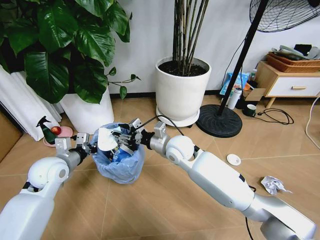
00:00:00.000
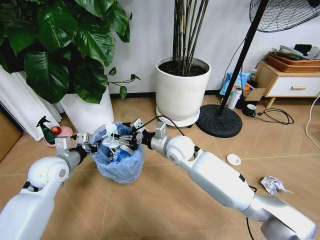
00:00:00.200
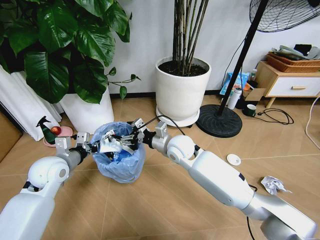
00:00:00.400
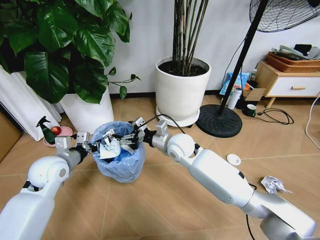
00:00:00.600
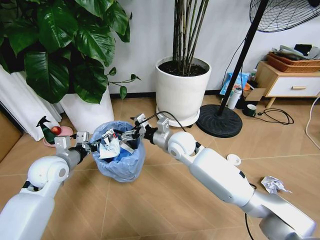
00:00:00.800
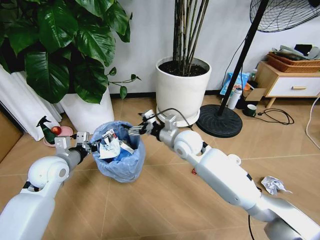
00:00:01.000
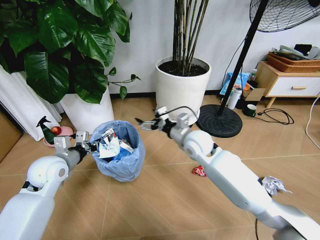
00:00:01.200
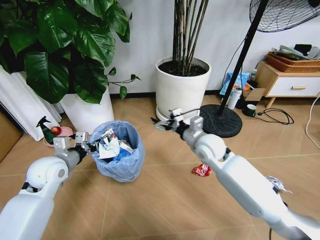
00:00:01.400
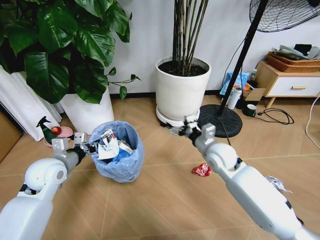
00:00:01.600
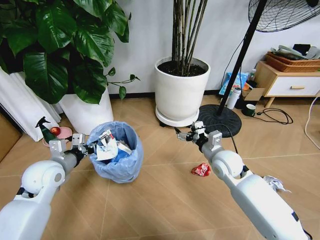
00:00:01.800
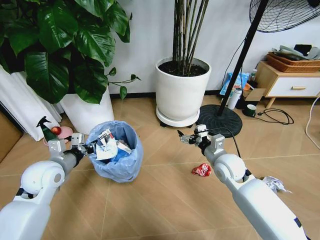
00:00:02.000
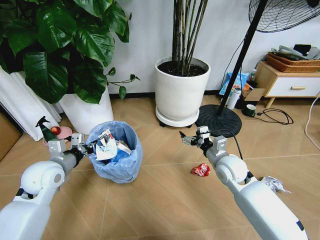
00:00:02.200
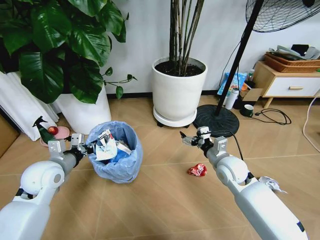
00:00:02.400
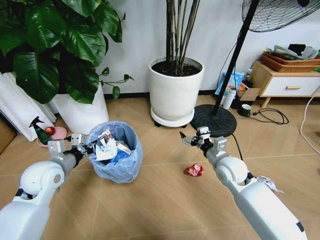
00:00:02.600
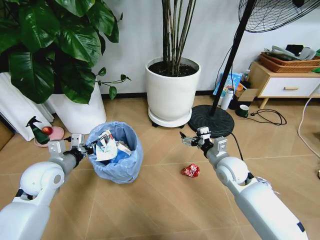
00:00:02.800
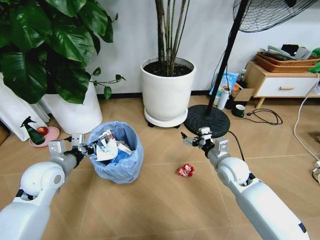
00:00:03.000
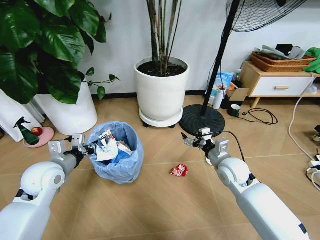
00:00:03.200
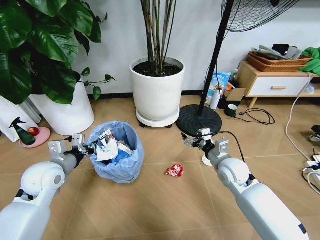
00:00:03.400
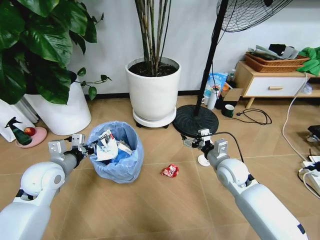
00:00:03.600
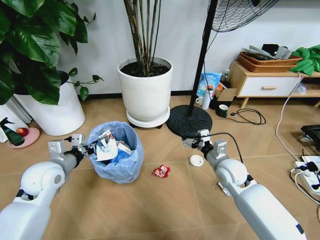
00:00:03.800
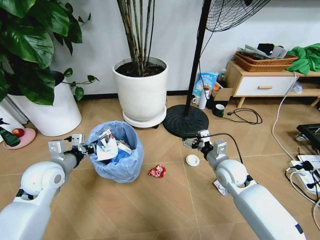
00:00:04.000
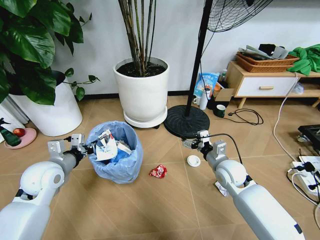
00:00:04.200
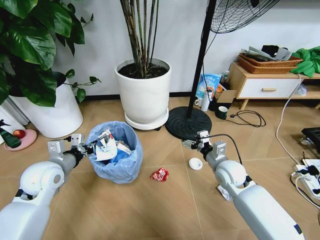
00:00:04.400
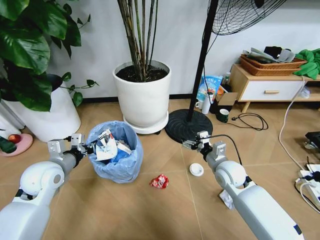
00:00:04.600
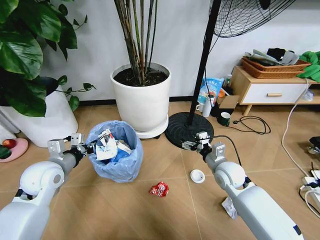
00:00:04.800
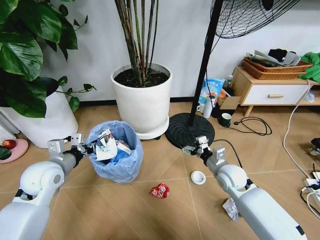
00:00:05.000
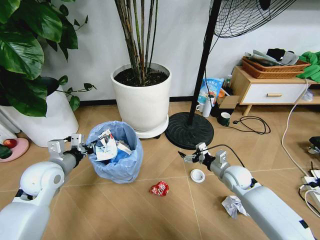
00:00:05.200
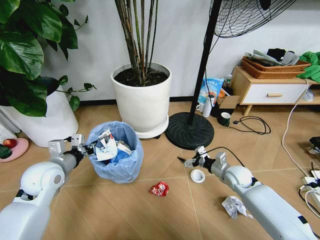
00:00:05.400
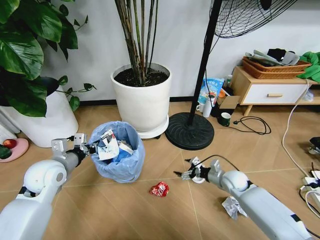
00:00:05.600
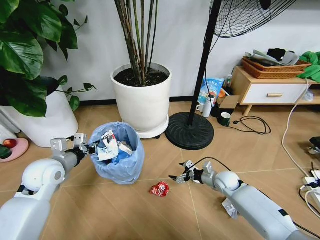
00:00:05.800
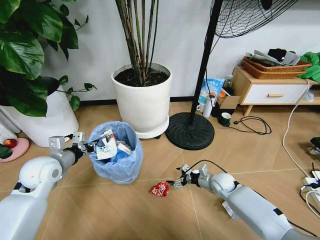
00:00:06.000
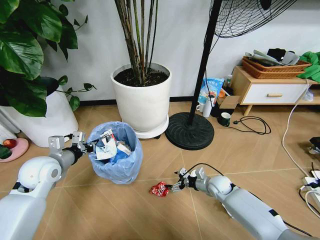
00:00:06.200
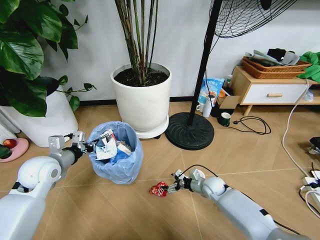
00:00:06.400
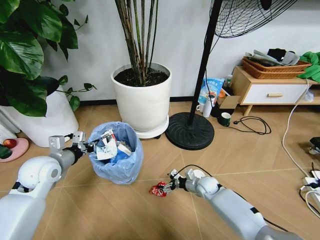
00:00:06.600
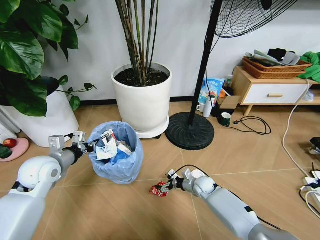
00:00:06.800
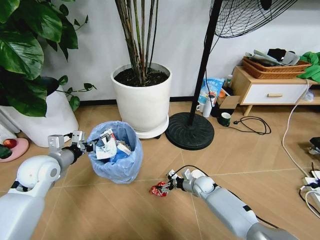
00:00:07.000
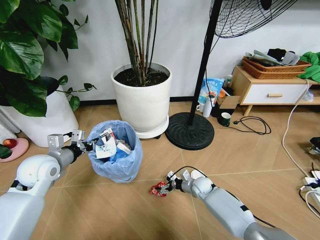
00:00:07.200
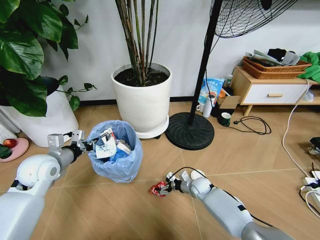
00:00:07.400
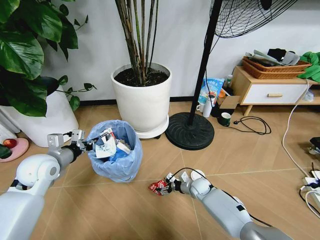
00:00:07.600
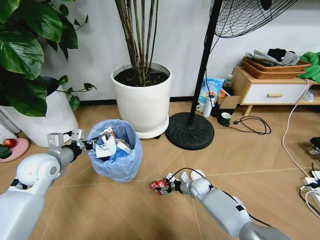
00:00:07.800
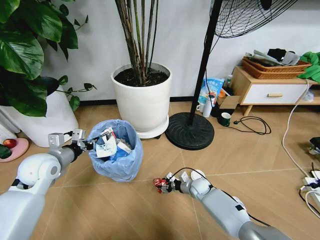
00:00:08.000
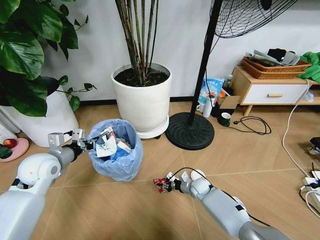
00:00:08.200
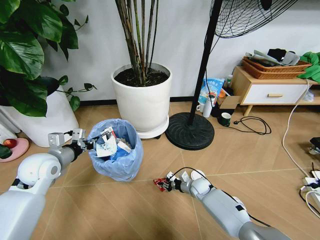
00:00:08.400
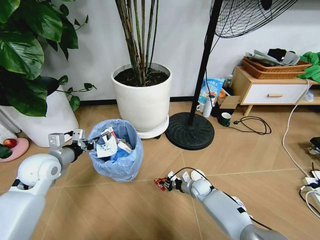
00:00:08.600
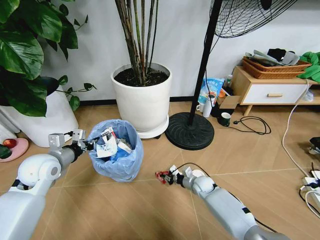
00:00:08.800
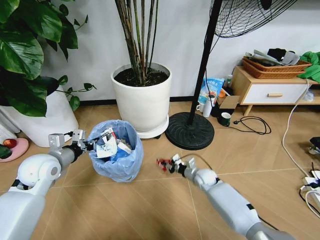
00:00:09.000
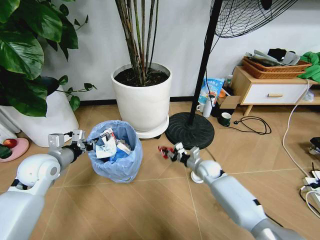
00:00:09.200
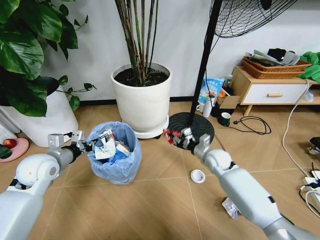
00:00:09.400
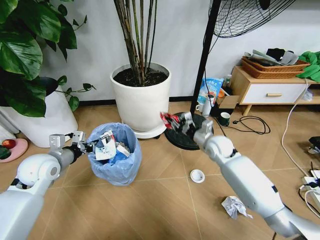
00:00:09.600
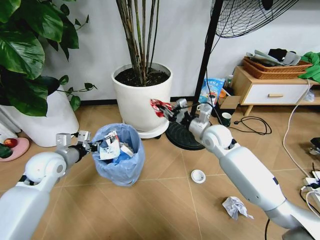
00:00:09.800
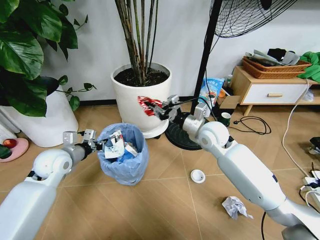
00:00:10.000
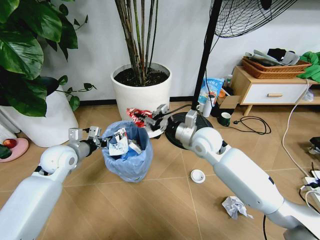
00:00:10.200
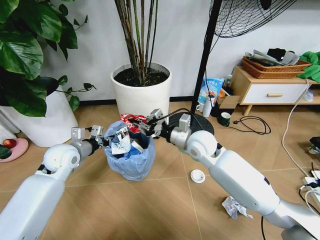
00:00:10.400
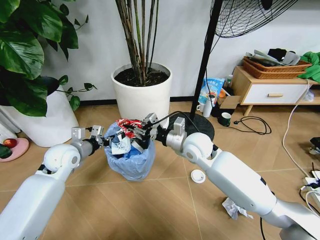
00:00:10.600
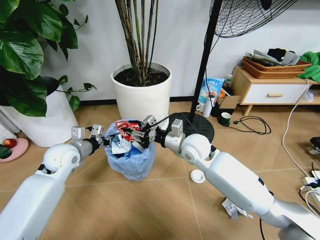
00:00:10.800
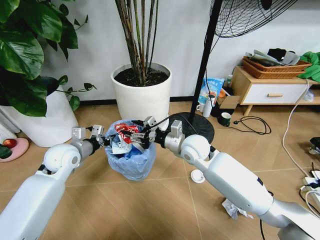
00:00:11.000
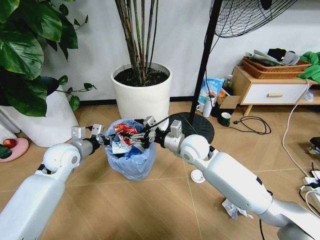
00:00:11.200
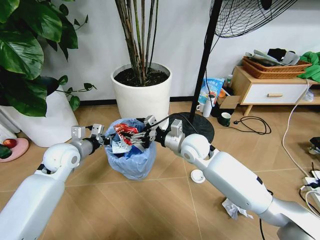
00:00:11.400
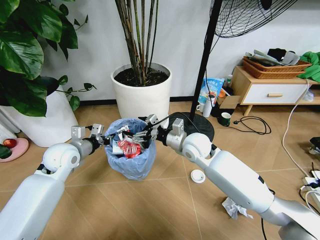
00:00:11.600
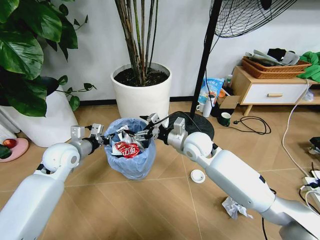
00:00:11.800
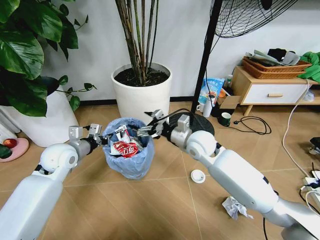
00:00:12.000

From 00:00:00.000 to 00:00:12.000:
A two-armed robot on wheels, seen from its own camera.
Task of the whole recording: Pick up the trash bin and place the garbage on the floor into it.
From 00:00:00.000 to 00:00:01.600: The right gripper is displaced to the right by approximately 15 cm, and opens up.
From 00:00:01.600 to 00:00:03.000: The right gripper changes place by about 5 cm.
From 00:00:04.400 to 00:00:06.000: The right gripper is displaced downward by approximately 15 cm.
From 00:00:06.000 to 00:00:07.600: The right gripper heads downward and to the left, covering about 10 cm.
From 00:00:07.600 to 00:00:09.000: The right gripper shifts approximately 5 cm upward, and closes its fingers.
From 00:00:09.000 to 00:00:10.400: The left gripper shifts by some 5 cm. The right gripper shifts some 25 cm upward.
From 00:00:10.400 to 00:00:12.000: The right gripper opens.

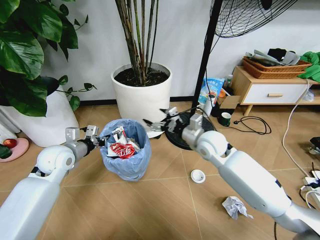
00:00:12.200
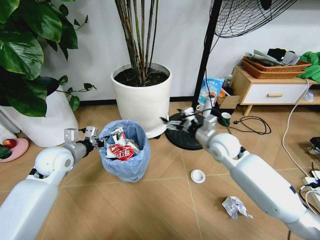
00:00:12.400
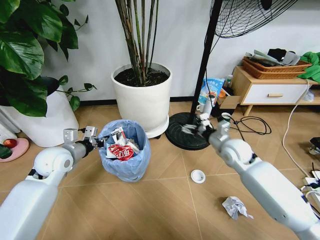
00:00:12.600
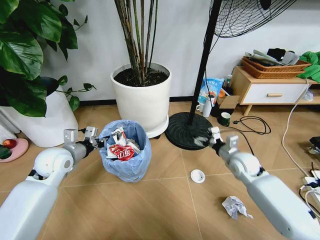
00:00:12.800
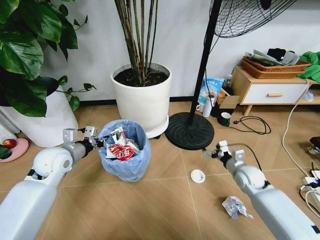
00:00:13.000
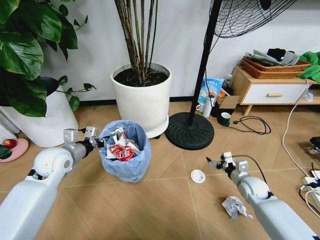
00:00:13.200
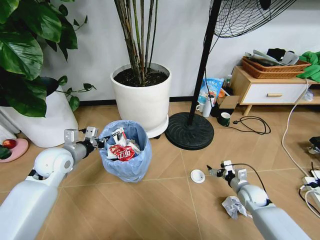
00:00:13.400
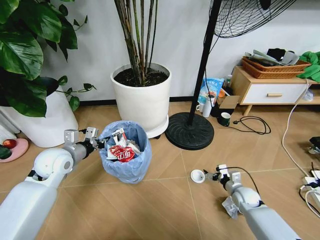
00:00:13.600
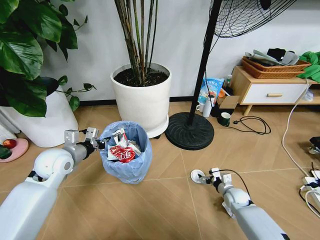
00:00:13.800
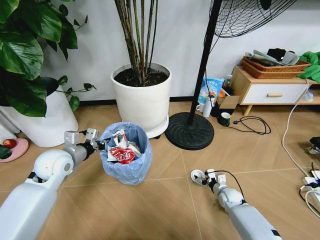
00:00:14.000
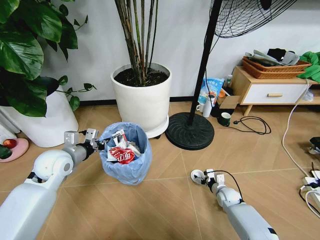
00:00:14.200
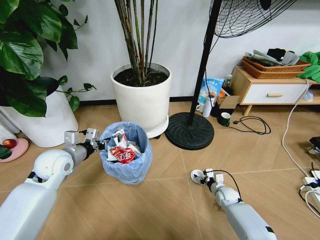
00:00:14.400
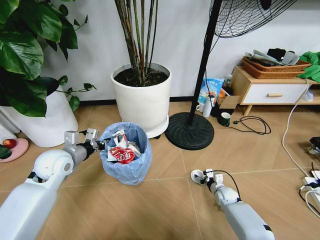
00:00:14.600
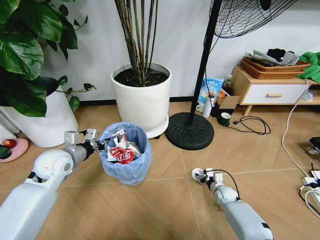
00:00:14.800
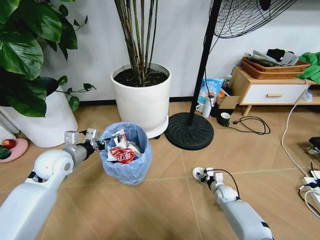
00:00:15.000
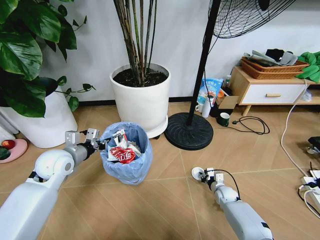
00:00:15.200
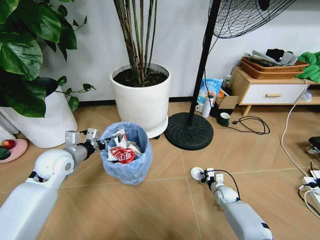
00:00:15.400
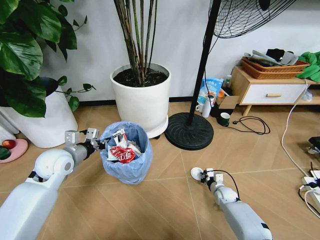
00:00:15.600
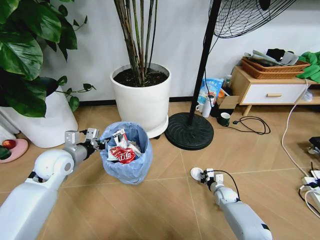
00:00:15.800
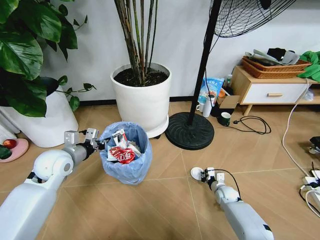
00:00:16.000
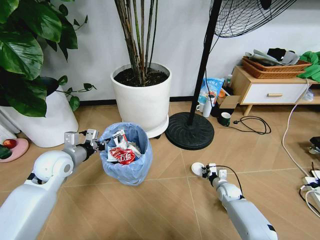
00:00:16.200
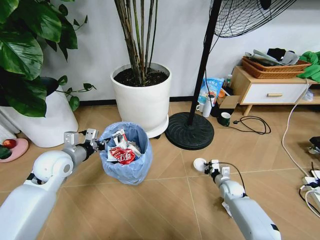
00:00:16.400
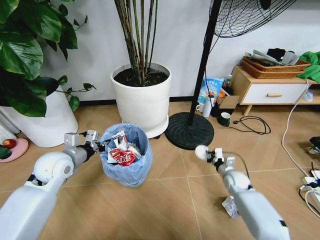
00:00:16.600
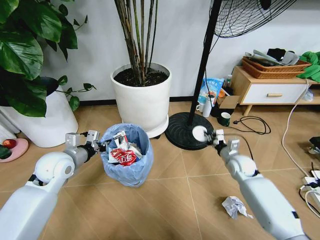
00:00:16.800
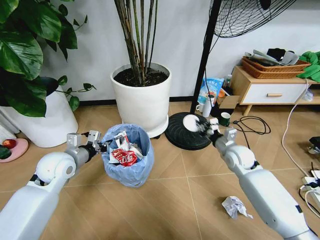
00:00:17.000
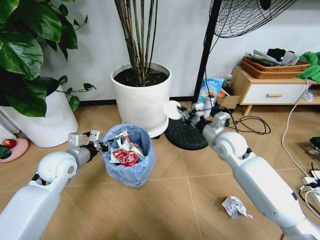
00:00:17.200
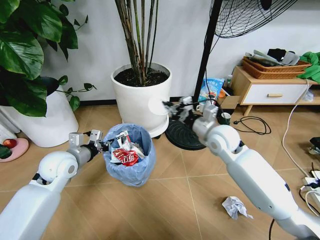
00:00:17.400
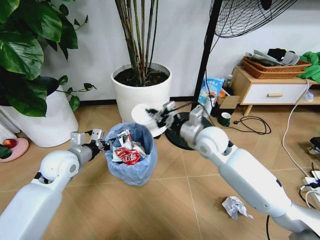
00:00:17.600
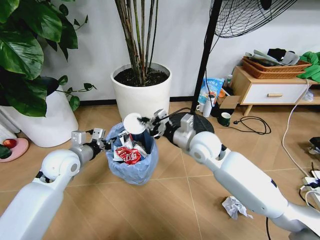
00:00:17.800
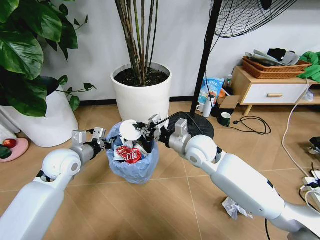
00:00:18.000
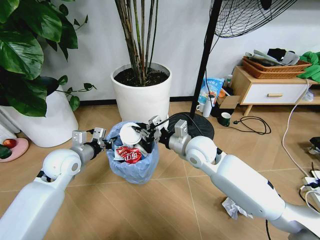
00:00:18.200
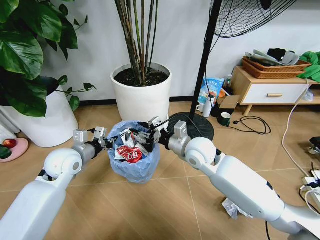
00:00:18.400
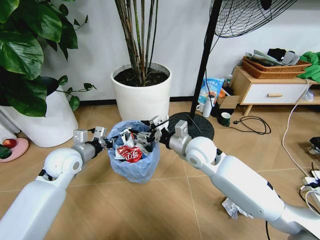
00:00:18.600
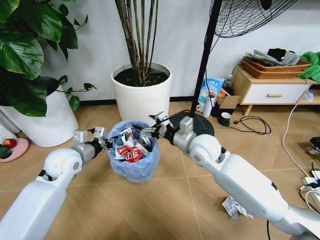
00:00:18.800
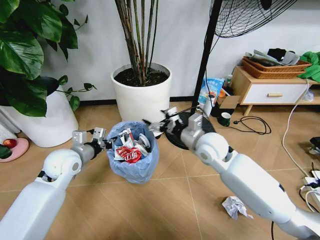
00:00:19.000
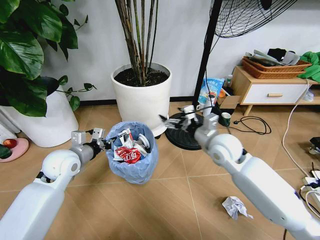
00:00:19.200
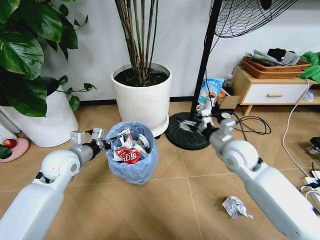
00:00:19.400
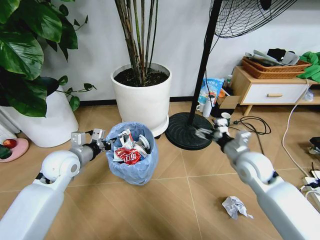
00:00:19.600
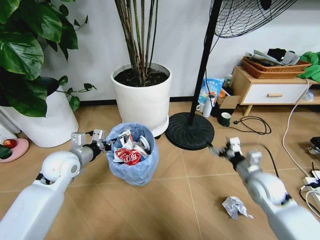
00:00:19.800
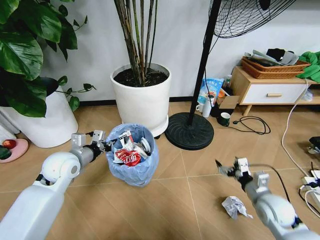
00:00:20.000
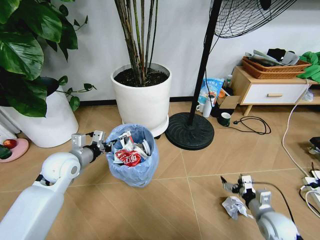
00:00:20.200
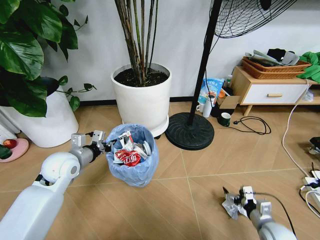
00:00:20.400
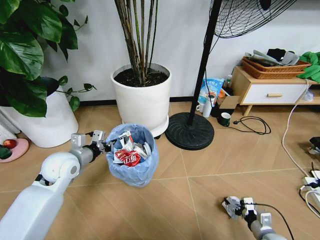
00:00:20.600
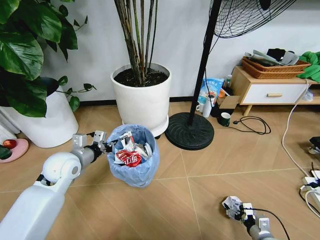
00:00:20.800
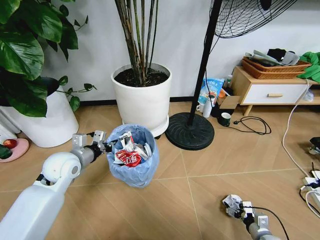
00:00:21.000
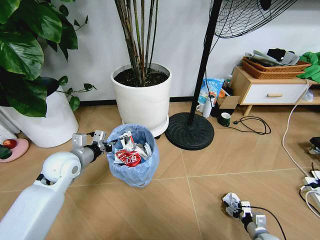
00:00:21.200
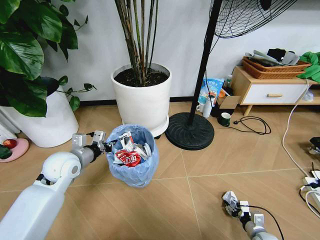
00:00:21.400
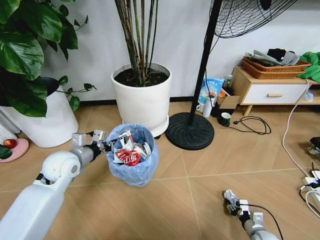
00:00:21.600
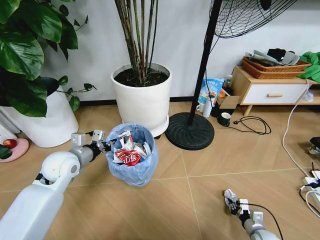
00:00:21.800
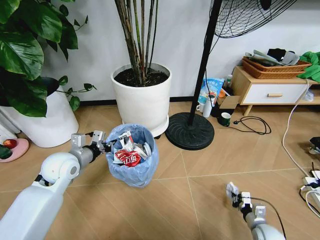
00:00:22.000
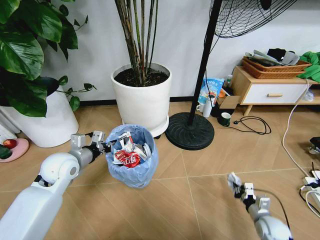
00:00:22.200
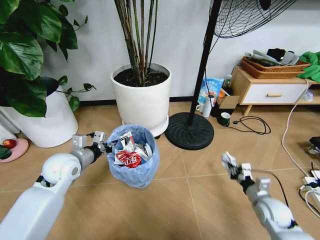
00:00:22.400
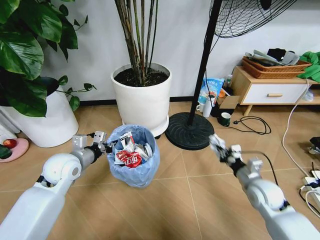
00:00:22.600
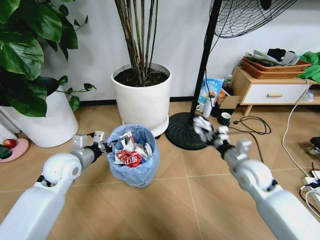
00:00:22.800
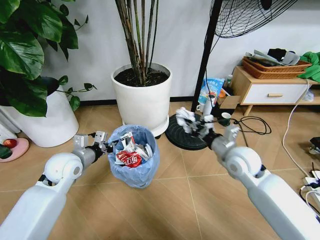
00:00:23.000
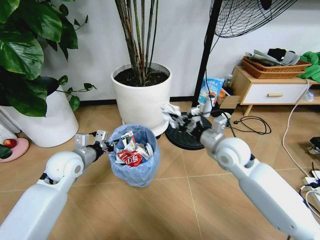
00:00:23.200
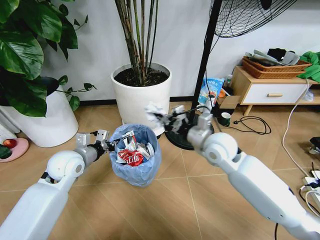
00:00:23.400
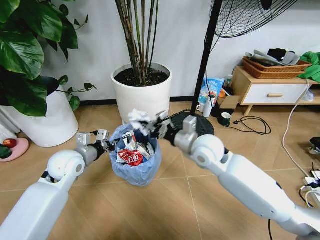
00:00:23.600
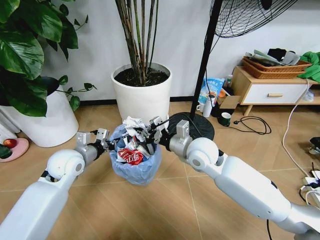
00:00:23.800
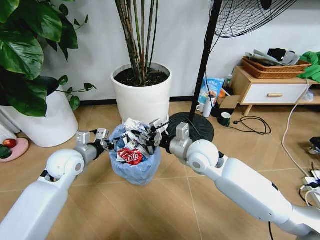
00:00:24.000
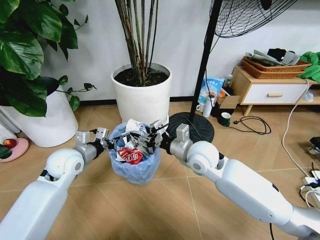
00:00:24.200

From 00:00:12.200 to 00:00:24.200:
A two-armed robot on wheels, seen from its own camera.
Task of the whole recording: Pick up the trash bin and place the garbage on the floor into it.
From 00:00:12.200 to 00:00:13.800: The right gripper heads downward and to the right, covering approximately 35 cm.
From 00:00:13.800 to 00:00:15.200: The right gripper changes place by some 5 cm, and closes its fingers.
From 00:00:15.200 to 00:00:16.600: The right gripper is displaced upward by approximately 5 cm.
From 00:00:16.600 to 00:00:18.200: The right gripper travels upward and to the left by some 35 cm.
From 00:00:18.200 to 00:00:19.800: The right gripper is displaced to the right, backward and downward by approximately 25 cm, and opens.
From 00:00:19.800 to 00:00:21.200: The right gripper goes some 25 cm downward and backward.
From 00:00:21.200 to 00:00:22.600: The right gripper travels upward and forward by approximately 25 cm, and closes up.
From 00:00:22.600 to 00:00:24.200: The right gripper moves to the left and upward, some 25 cm, and opens.
